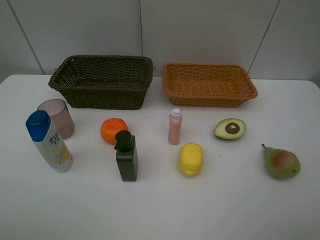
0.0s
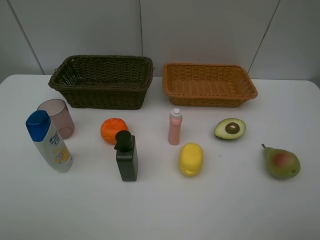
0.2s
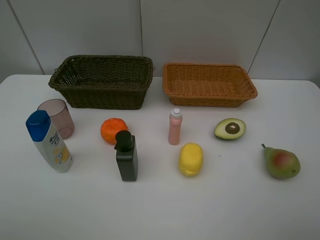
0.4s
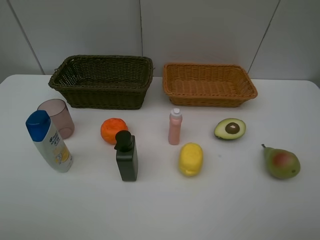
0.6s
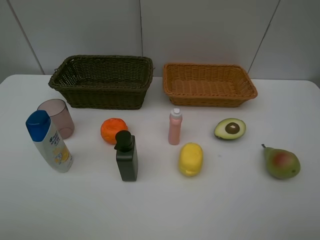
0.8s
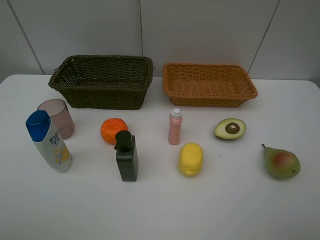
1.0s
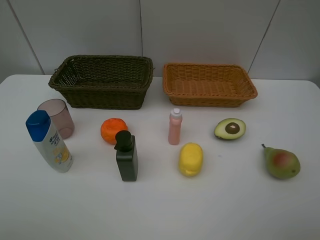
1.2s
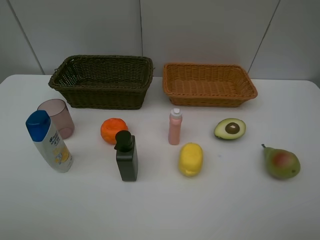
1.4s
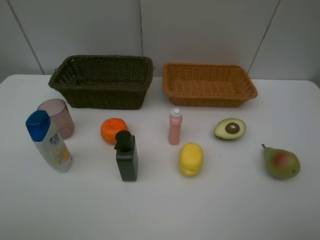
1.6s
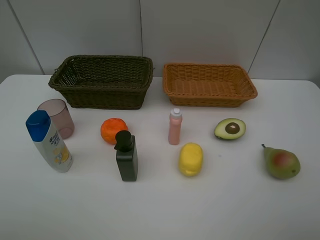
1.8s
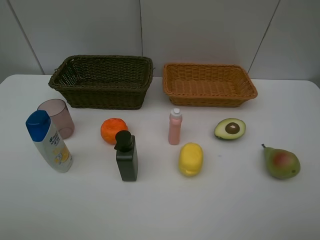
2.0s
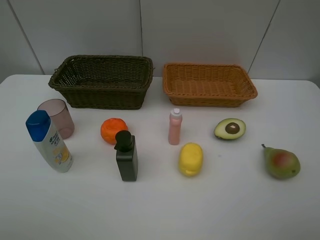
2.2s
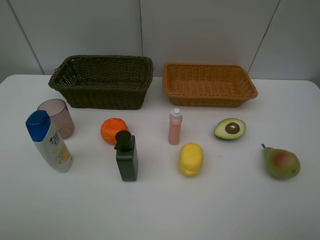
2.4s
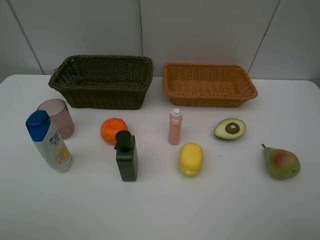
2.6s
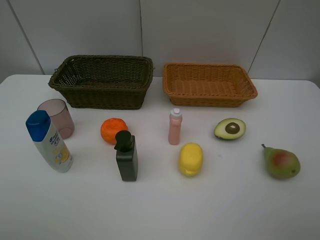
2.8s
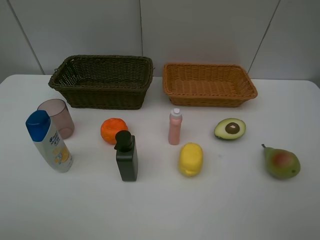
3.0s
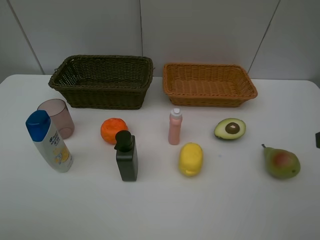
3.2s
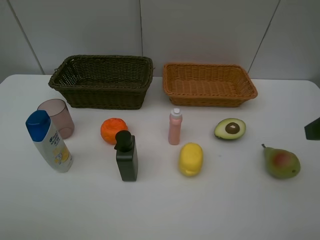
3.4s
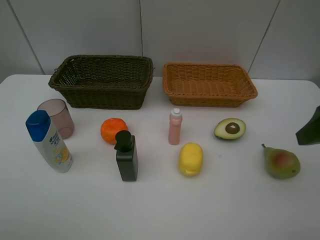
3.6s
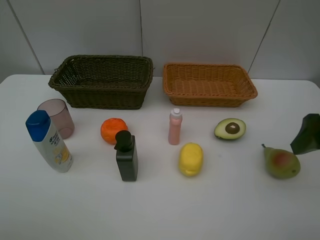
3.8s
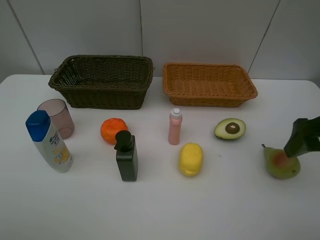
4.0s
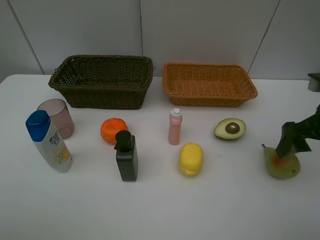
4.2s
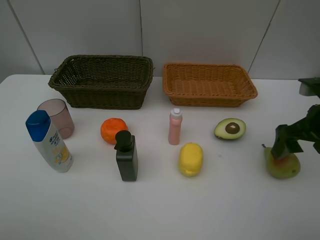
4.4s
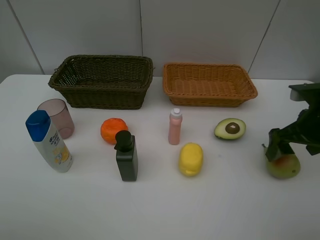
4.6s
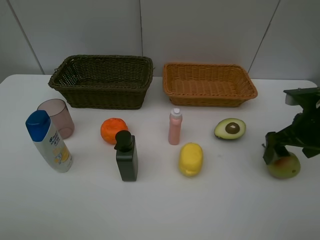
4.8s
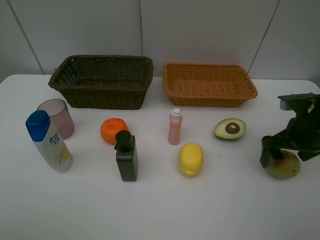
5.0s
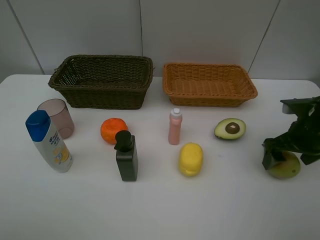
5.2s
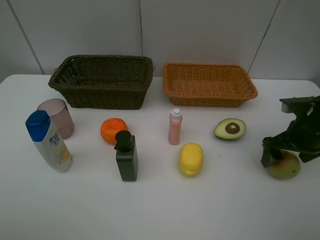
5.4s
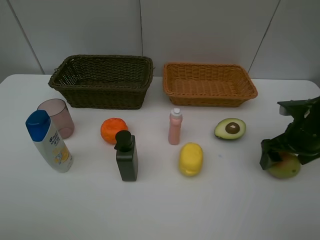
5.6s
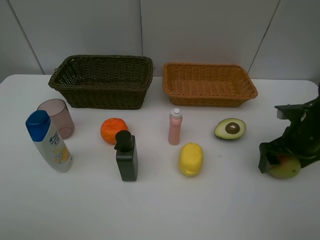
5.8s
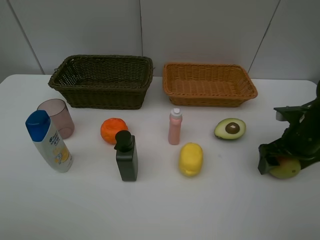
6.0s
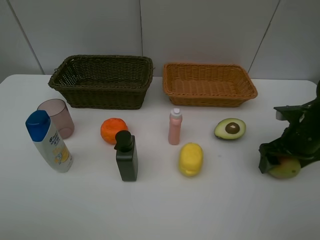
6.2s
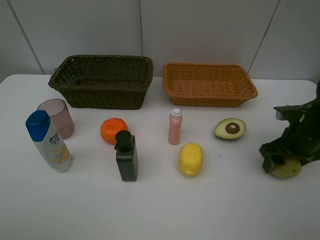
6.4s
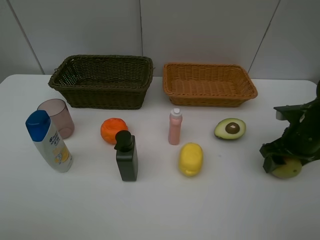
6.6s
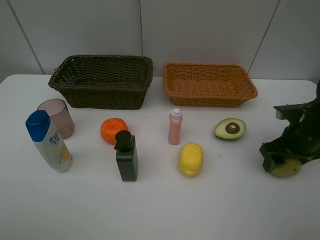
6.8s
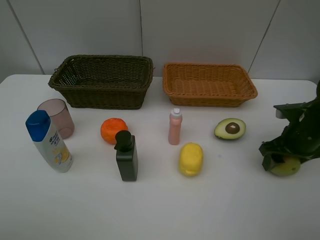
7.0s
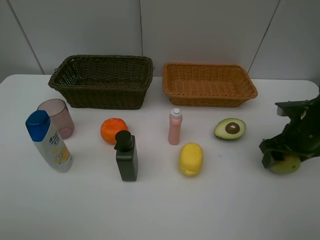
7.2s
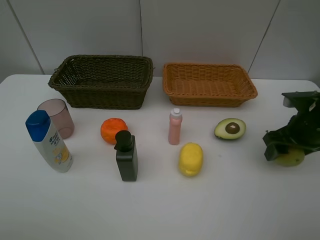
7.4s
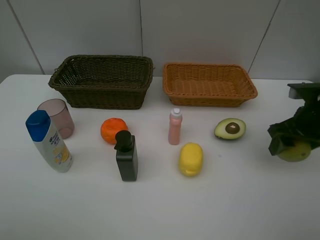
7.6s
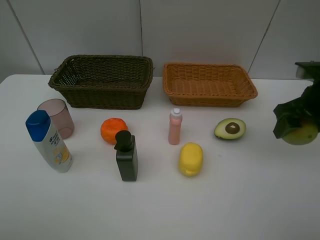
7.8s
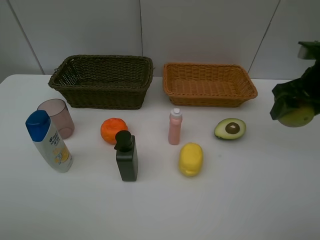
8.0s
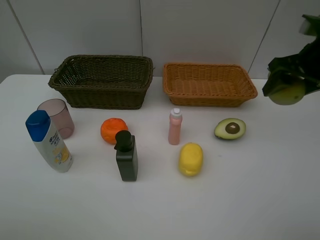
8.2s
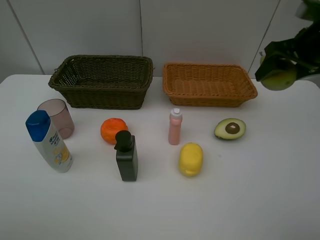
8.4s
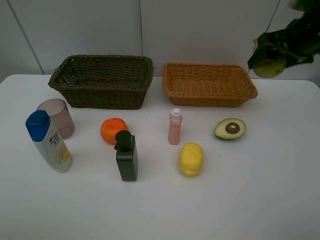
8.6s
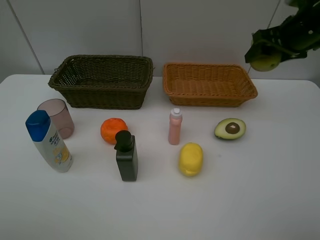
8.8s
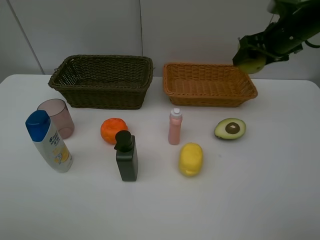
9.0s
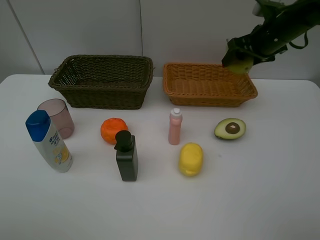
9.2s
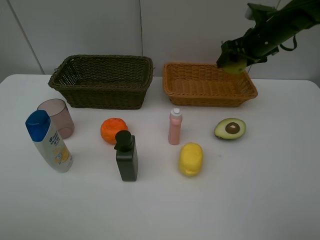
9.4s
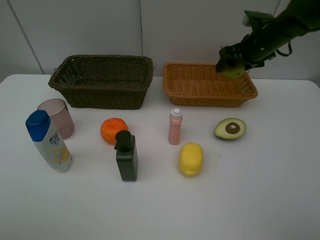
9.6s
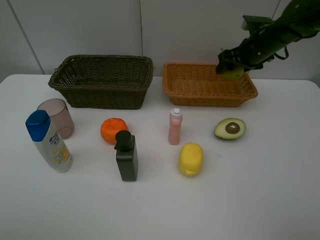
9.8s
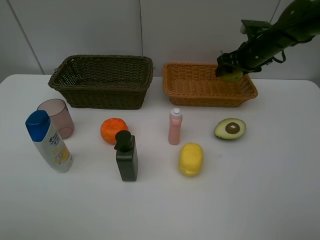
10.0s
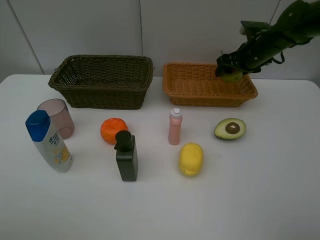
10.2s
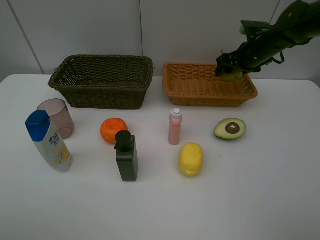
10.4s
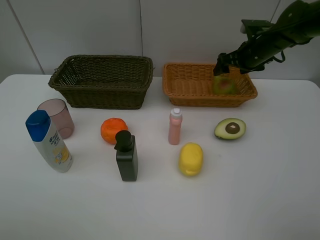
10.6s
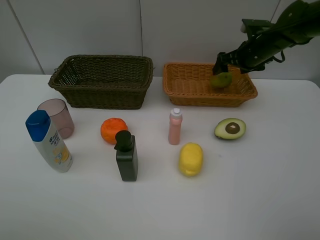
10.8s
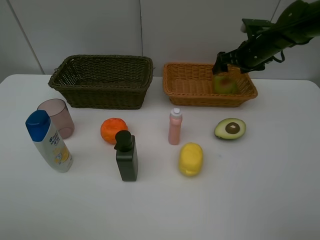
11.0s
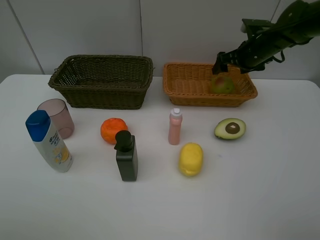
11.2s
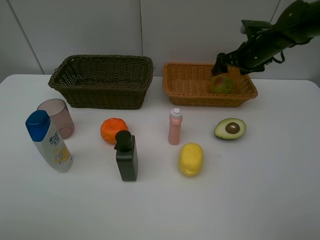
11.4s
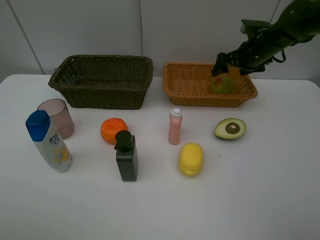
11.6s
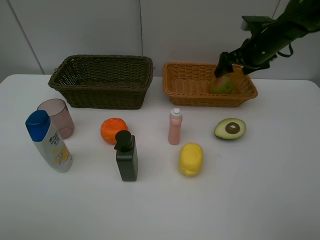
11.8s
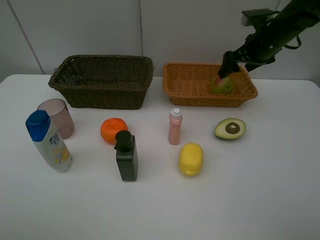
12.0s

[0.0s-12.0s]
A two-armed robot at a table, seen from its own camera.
Task of the whole recording: Place multiple objects separately in different baskets.
Step, 0.0s to 7.4s: Pick up the pear with right gripper.
Step, 7.6s to 10.8s: Place the pear in the light basket with right gripper.
0.0s to 1.6s: Both grippers stay put.
3.0s to 4.4s: The right gripper moves forward and downward, about 15 cm.
4.4s to 6.0s: The right gripper goes approximately 10 cm downward.
6.0s to 7.6s: The right gripper moves upward, some 5 cm, and closes its fingers.
7.6s to 9.0s: The right gripper goes some 15 cm forward and upward.
9.0s to 10.4s: The right gripper shifts about 10 cm downward and forward.
10.4s to 12.0s: The right gripper ends up approximately 5 cm from where it was, and opens.

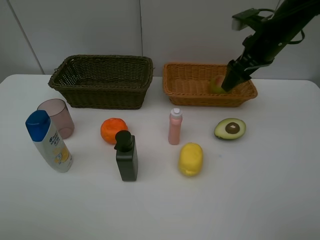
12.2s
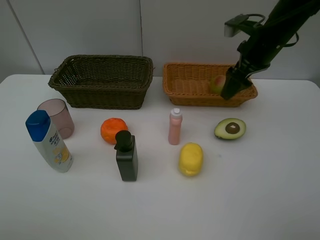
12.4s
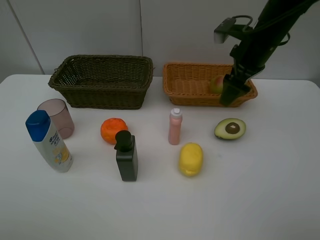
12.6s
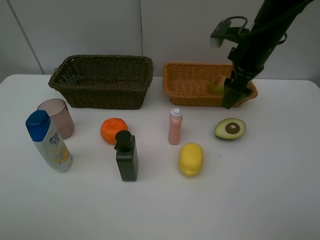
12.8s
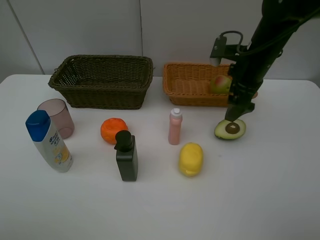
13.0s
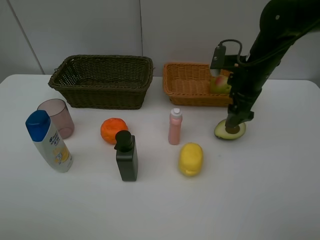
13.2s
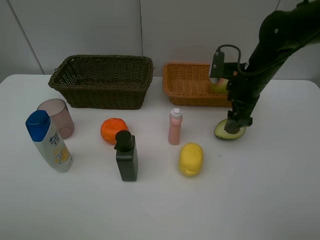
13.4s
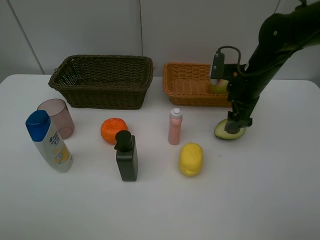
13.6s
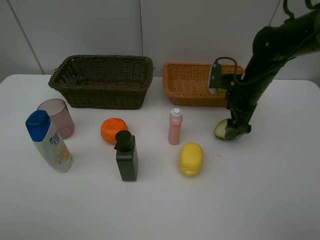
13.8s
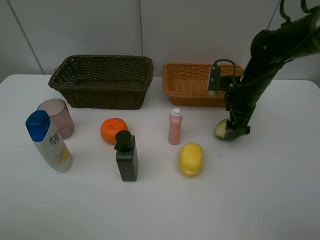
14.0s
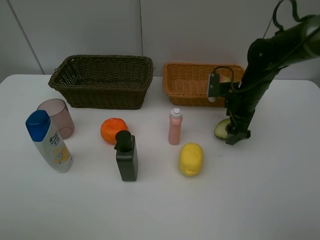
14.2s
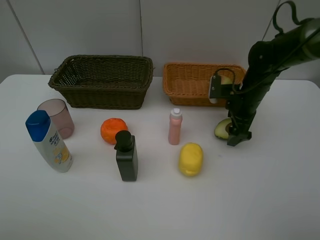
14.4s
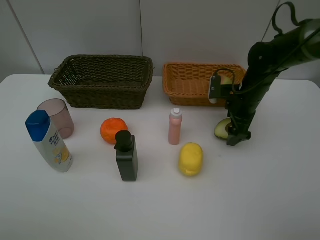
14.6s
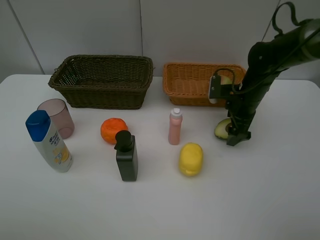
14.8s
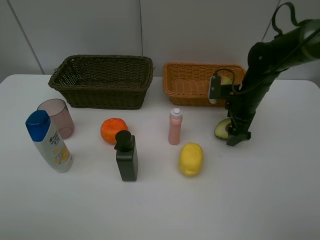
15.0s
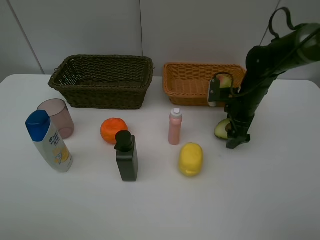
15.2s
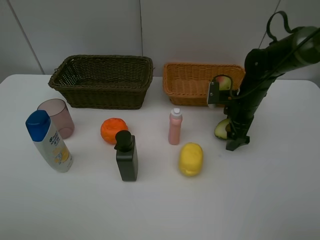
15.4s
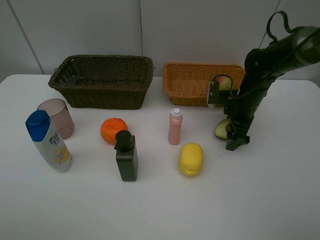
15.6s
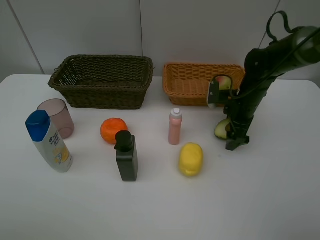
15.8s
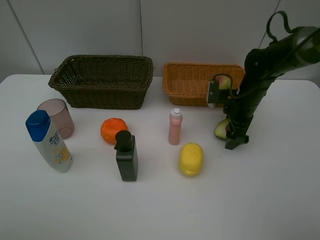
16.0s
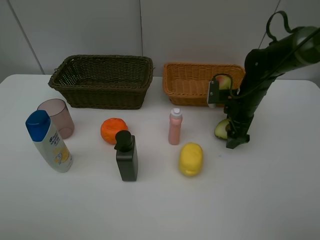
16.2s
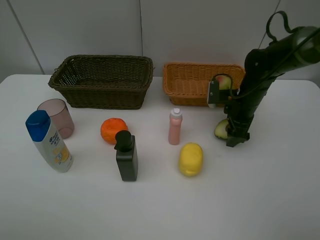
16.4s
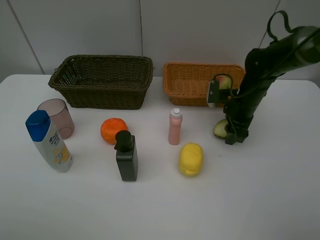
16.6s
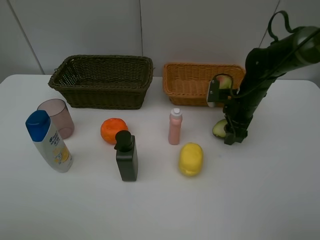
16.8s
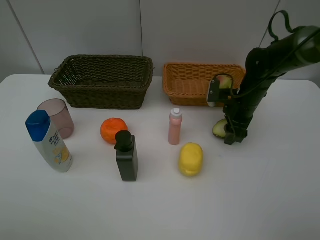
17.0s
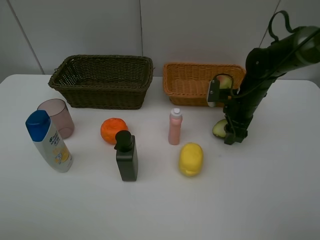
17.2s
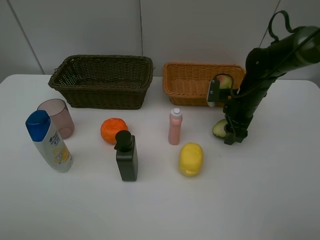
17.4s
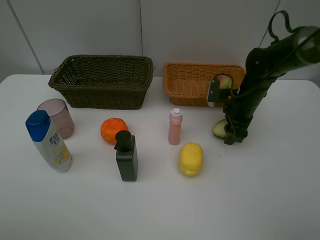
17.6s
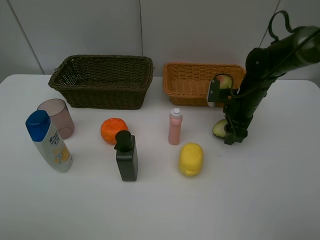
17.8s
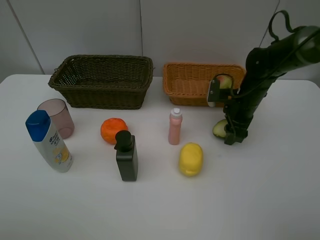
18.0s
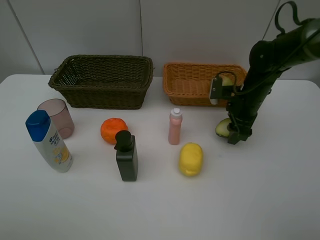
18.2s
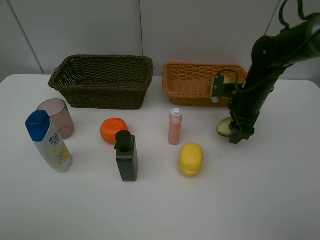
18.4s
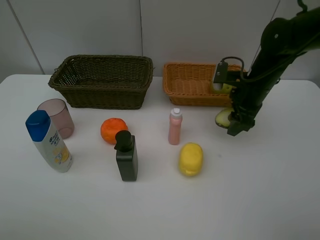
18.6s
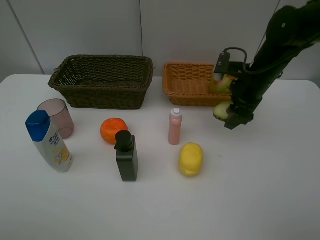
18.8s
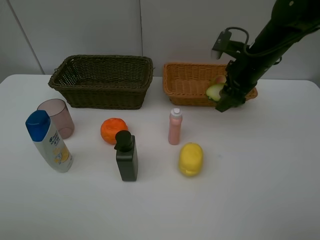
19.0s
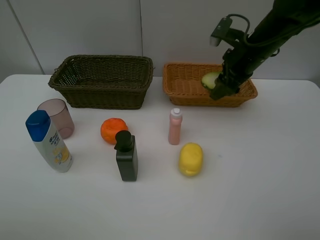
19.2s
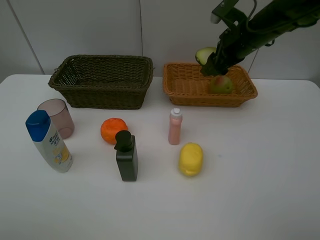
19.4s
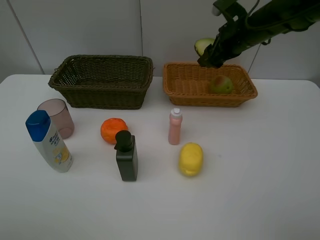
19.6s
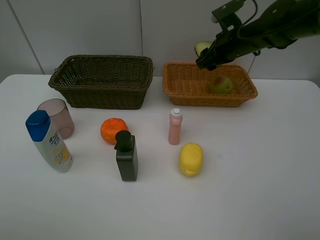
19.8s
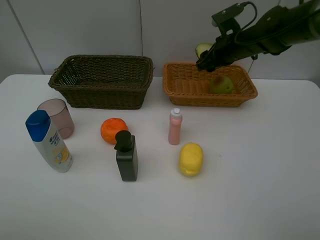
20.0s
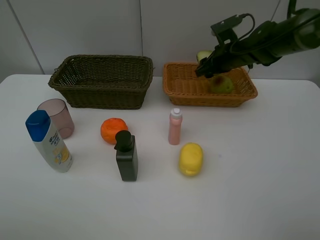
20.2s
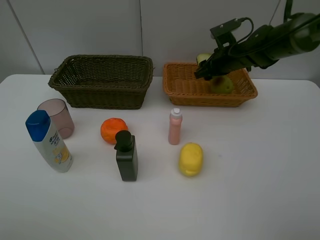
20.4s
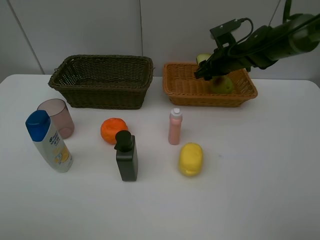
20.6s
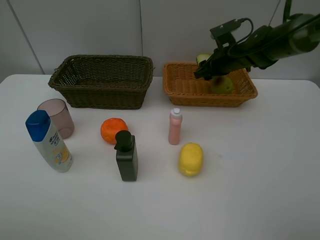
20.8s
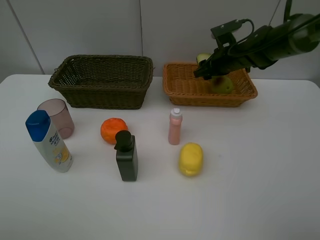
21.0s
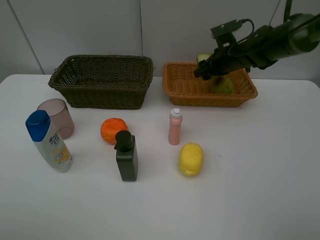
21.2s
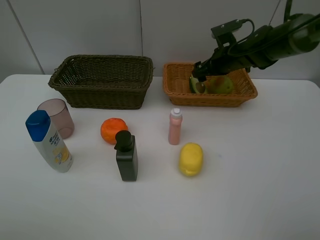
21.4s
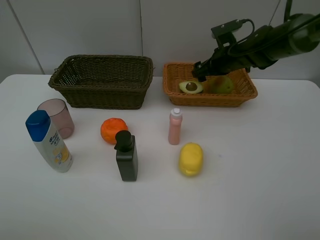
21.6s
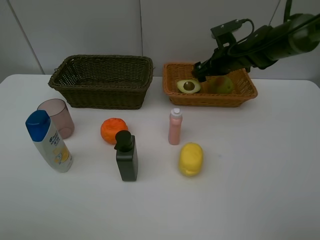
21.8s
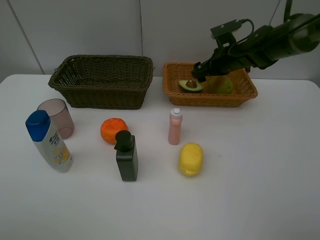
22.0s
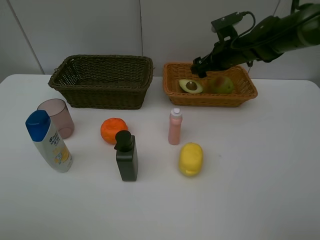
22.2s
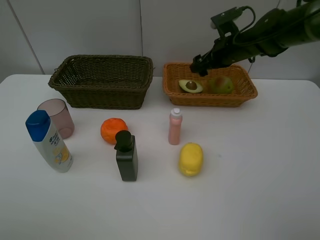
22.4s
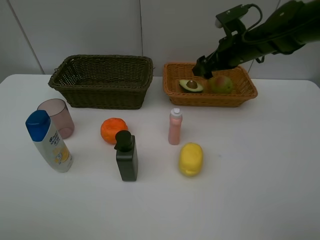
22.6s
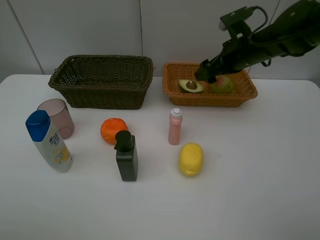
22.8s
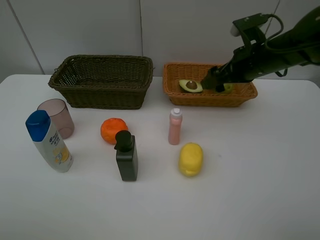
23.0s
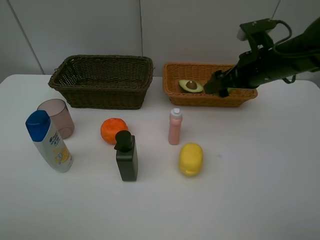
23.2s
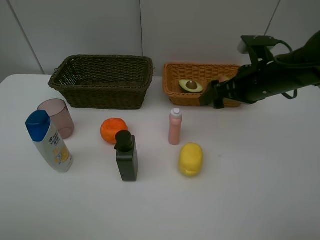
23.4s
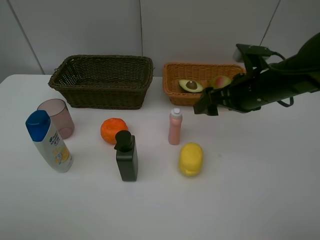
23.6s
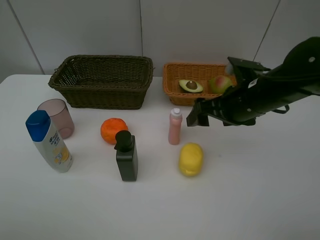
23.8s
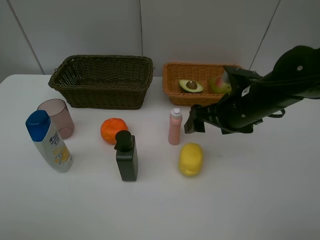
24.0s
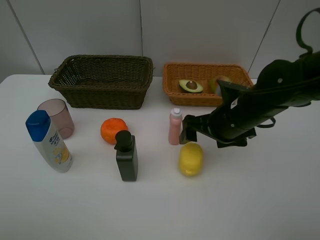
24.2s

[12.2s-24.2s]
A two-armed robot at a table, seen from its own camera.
Task of the whole recording: Place multiple objects separately in different baskets.
Step, 12.2s to 18.2s: Pick up the avocado with right gripper.
Step, 18.4s to 21.6s: Place the avocado in the light basket with right gripper.
12.2s to 13.8s: The right gripper moves downward, about 10 cm.
13.8s to 15.2s: The grippers make only small movements.
15.2s to 16.6s: The right gripper closes its fingers.
16.6s to 18.2s: The grippers stay close to where they were, moving slightly.
18.2s to 19.8s: The right gripper shifts some 10 cm upward and forward.
19.8s to 21.2s: The right gripper shifts approximately 5 cm downward.
21.2s to 22.6s: The right gripper moves about 5 cm.
22.6s to 24.2s: The right gripper travels backward and downward by roughly 15 cm.
